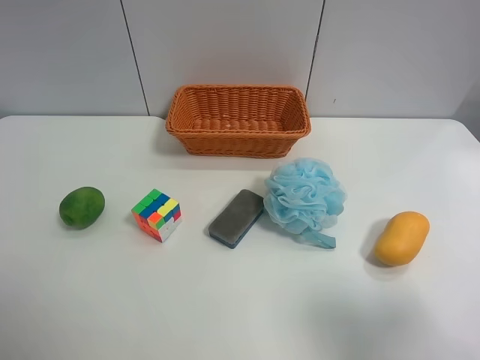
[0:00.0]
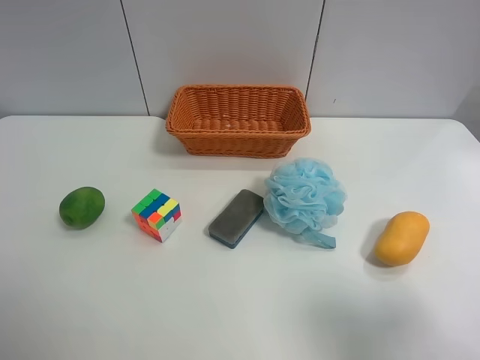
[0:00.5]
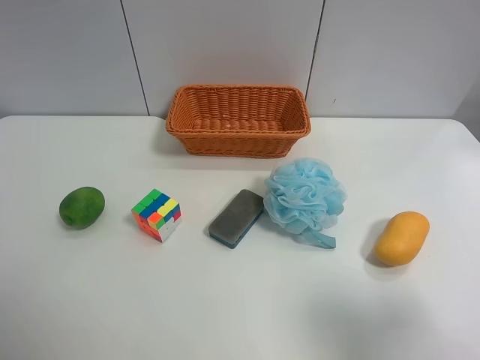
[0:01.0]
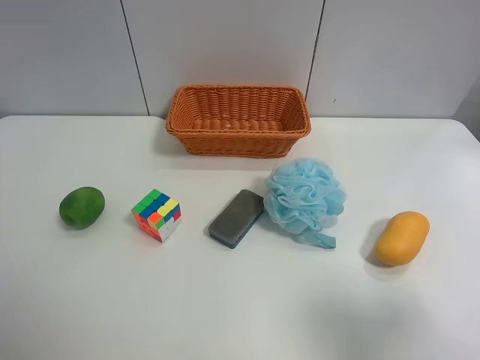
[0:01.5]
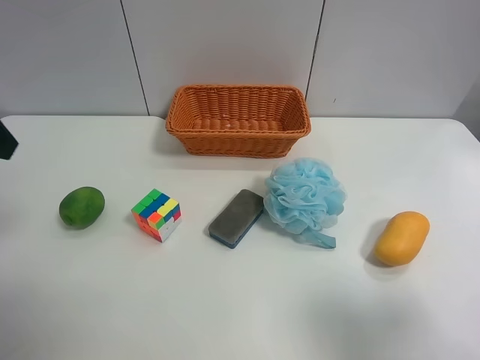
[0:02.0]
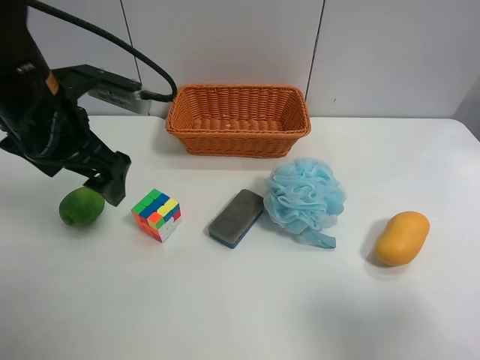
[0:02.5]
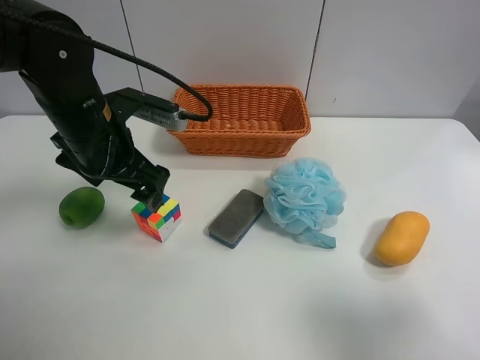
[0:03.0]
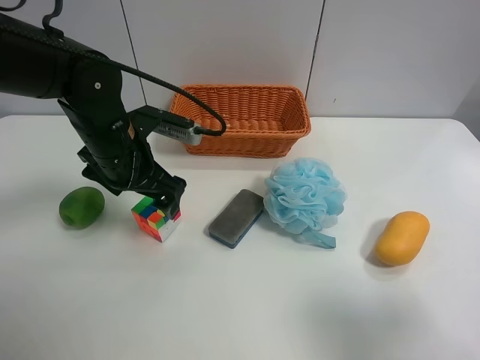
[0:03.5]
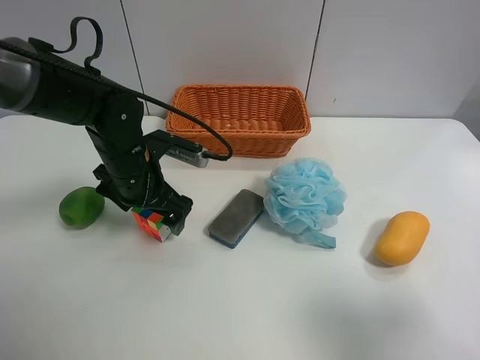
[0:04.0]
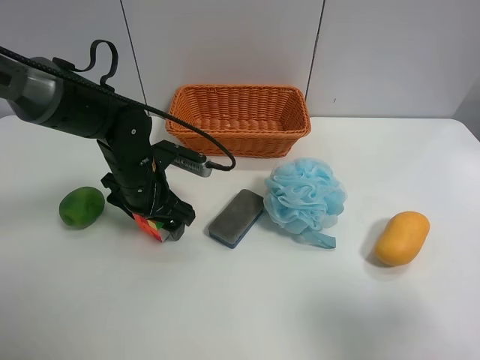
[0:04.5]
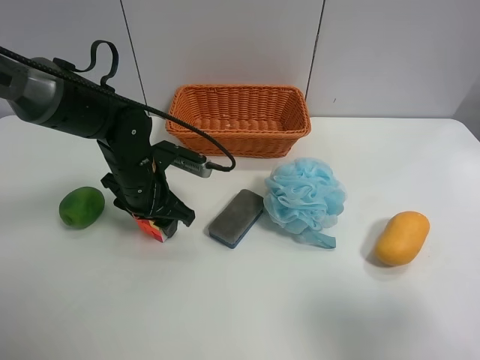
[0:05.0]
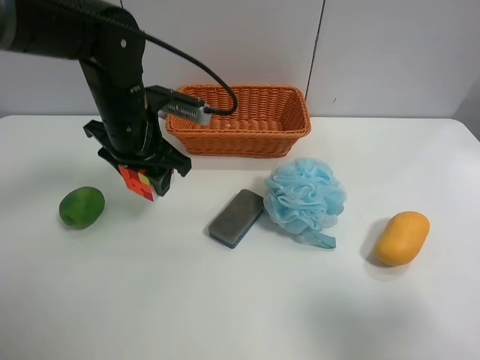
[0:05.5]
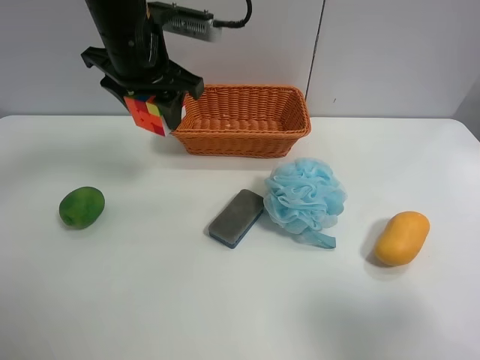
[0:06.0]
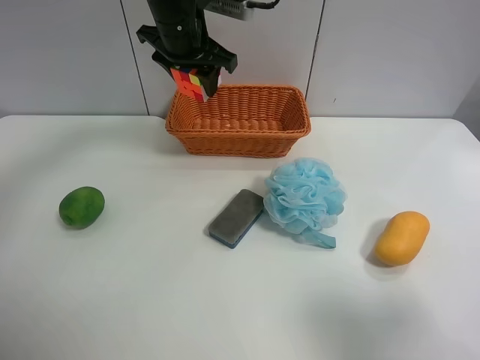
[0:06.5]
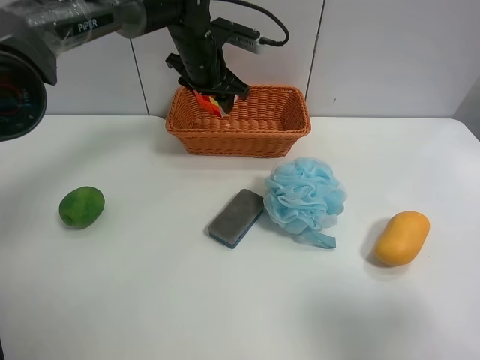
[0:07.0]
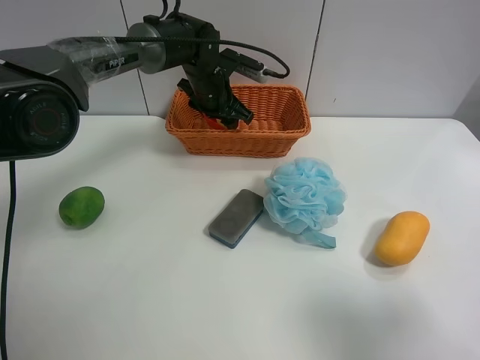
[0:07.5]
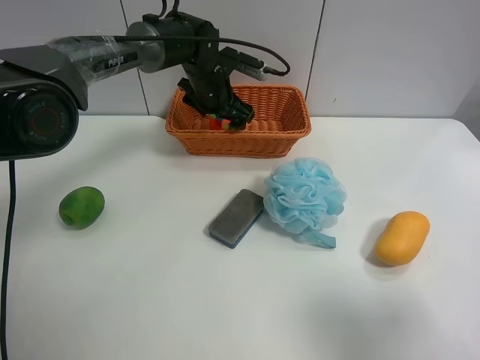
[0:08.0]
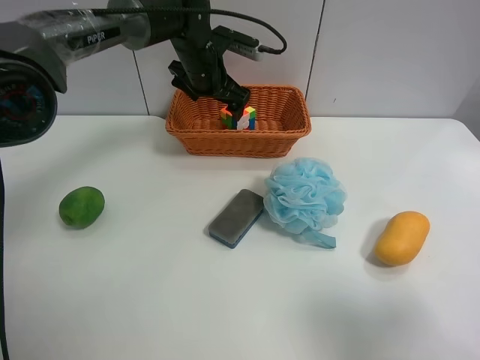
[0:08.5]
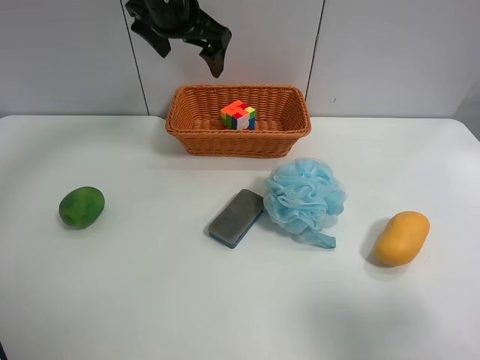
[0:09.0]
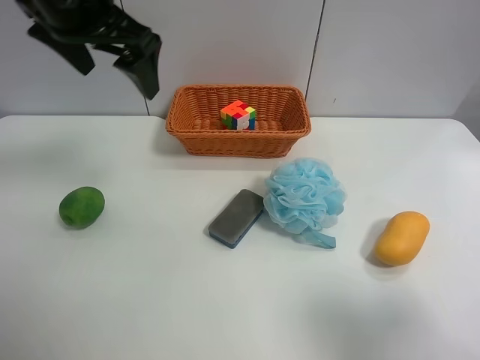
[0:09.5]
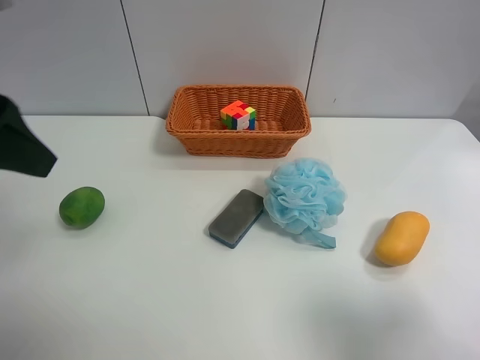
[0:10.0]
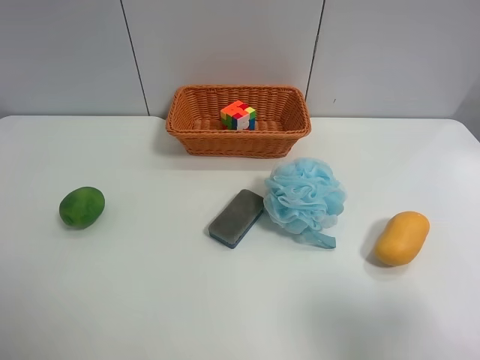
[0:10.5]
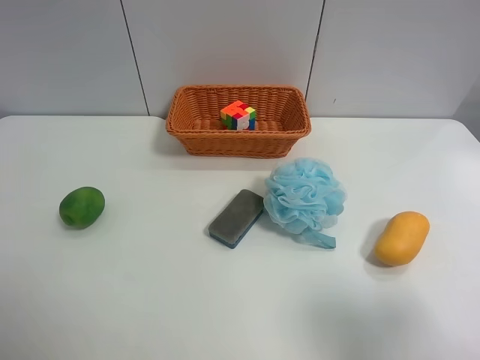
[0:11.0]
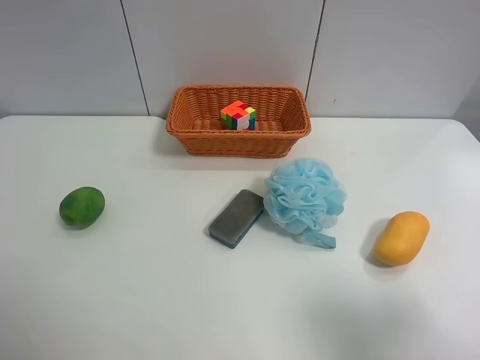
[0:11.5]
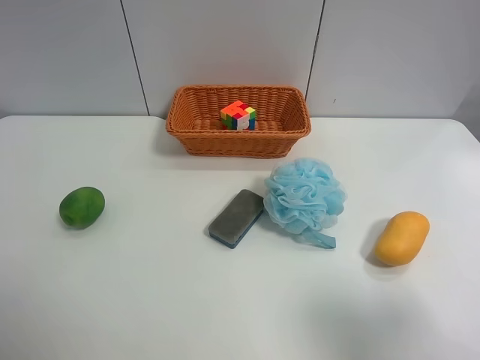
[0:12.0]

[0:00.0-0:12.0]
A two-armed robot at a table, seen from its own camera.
Task of the whole recording: use the left gripper to grab items from the table and place them in the basket.
Step, 0:00.0 to 0:04.5: Grasp the Rubik's Cube with the left gripper.
Step, 0:05.0 to 0:08.0: Place the Rubik's Cube into the basket with the left gripper.
0:02.0 to 0:04.0: The left gripper heads downward, to the right and forward, covering some 25 cm.
0:04.0 to 0:06.0: The left gripper moves upward, about 15 cm, and closes.
0:06.0 to 0:08.0: The left gripper moves forward, downward and to the right, roughly 20 cm, and opens its fingers.
0:08.0 to 0:10.0: The left gripper goes roughly 40 cm backward, upward and to the left.
0:10.0 to 0:12.0: The left gripper travels backward, to the left and downward by some 20 cm.

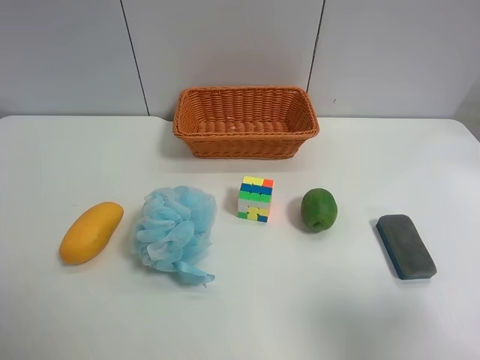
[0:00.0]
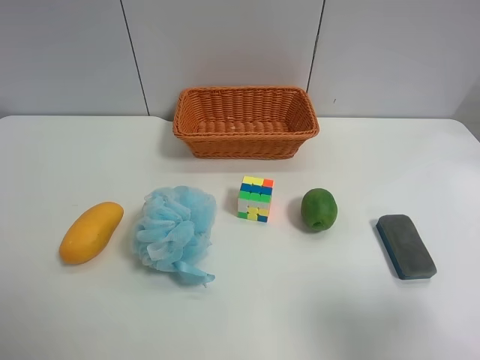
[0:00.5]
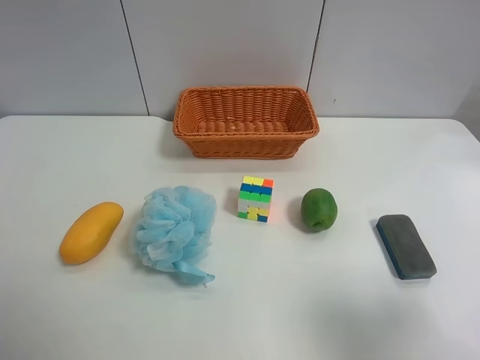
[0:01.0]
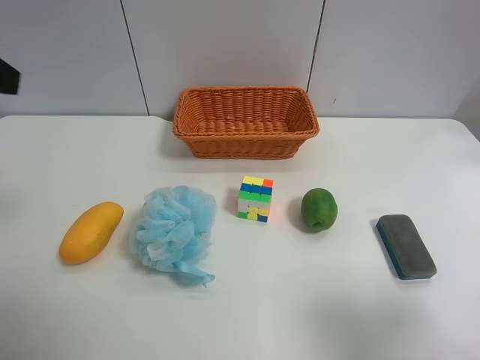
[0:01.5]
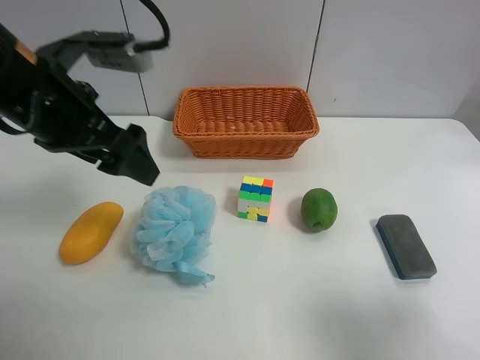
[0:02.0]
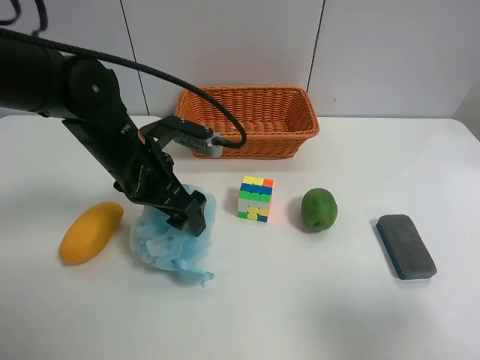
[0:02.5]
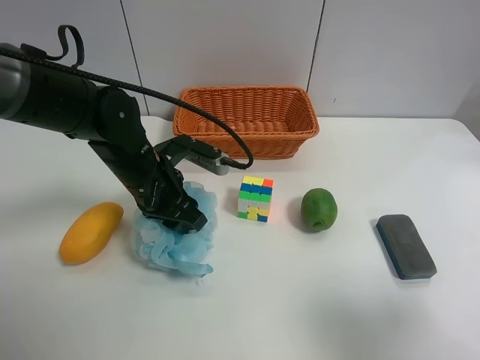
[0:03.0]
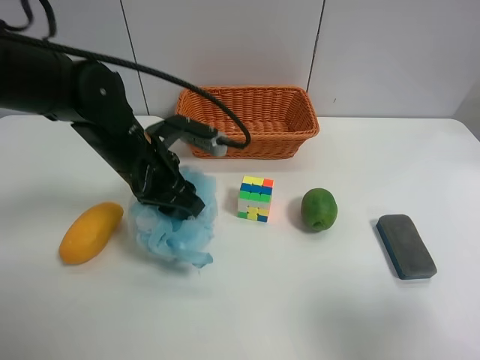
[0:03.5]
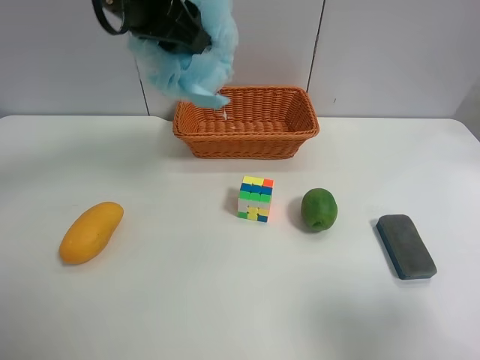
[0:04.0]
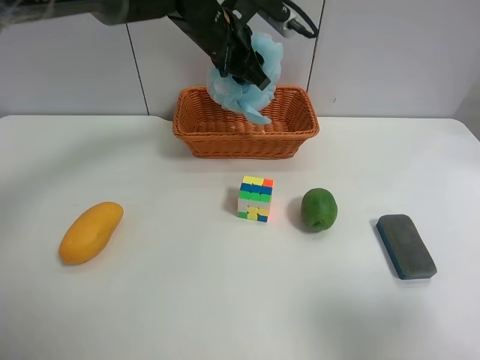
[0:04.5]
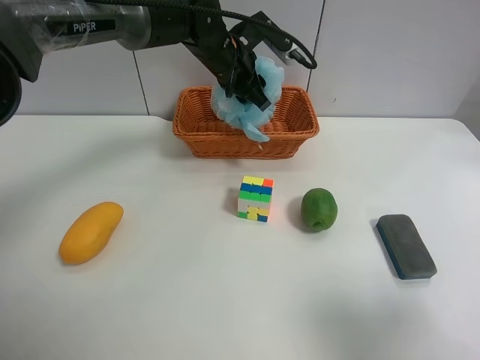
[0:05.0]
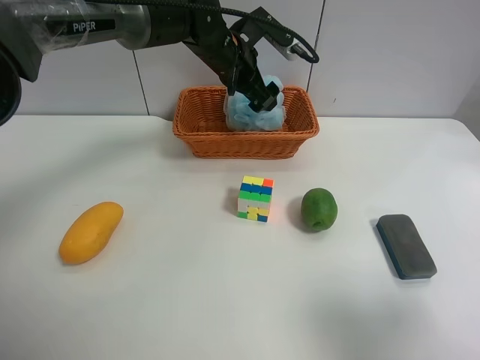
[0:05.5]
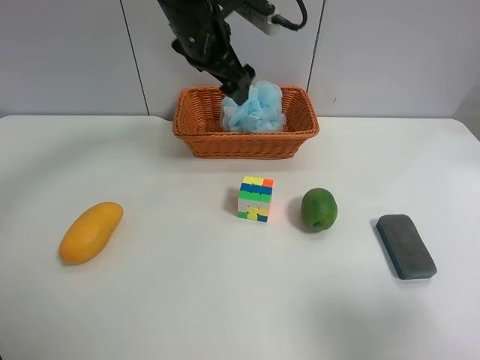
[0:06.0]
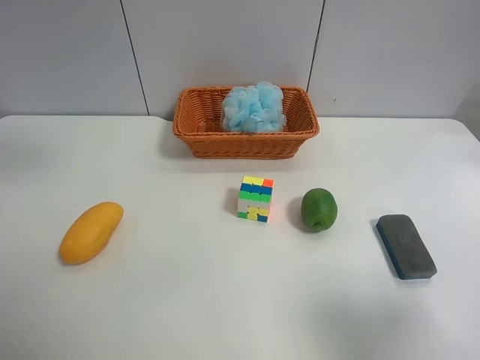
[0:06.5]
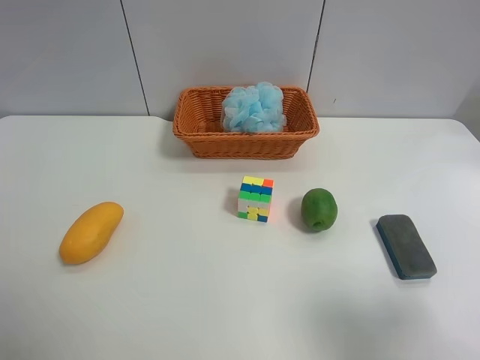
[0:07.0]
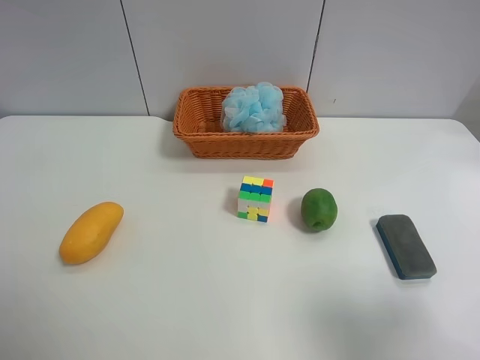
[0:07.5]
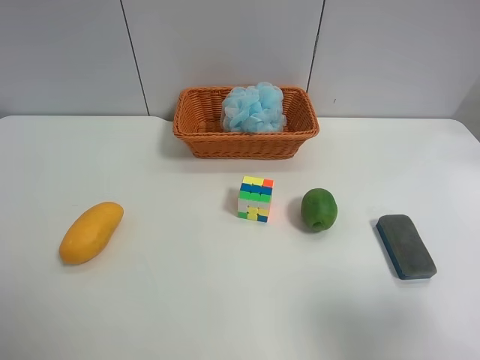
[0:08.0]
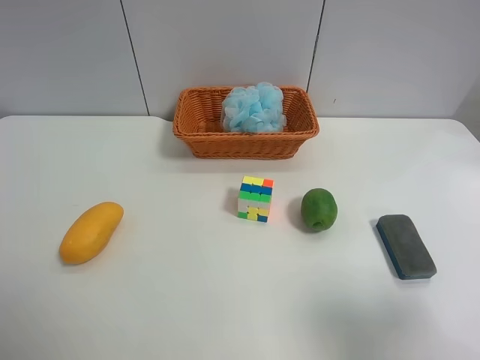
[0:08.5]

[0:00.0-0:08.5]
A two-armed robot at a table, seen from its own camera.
Task of the whole recording: use the left gripper to grab items from the table and place them in the basket.
Step, 0:00.0 to 0:03.0: Grasp the Shower puff with the left gripper.
Step, 0:03.5 to 0:05.5: Place the Shower puff into the basket with the left gripper.
0:00.0 to 0:02.0: The left gripper heads forward and to the right, covering some 30 cm.
0:02.0 to 0:04.0: The left gripper is displaced forward, upward and to the right by approximately 15 cm, and closes up.
0:04.0 to 0:06.5: The left gripper shifts approximately 15 cm upward, to the left and backward, and opens up.
